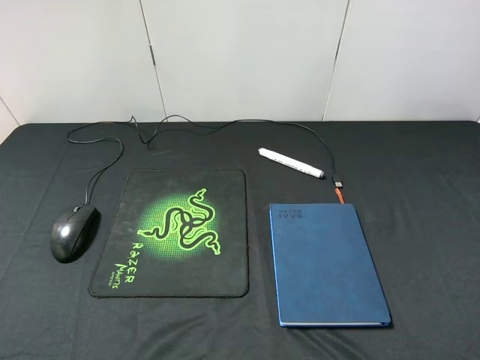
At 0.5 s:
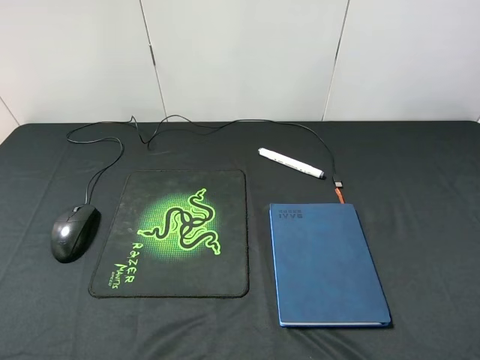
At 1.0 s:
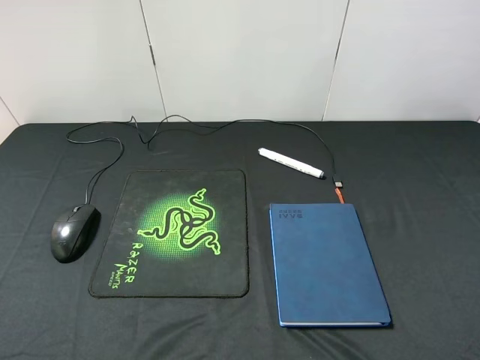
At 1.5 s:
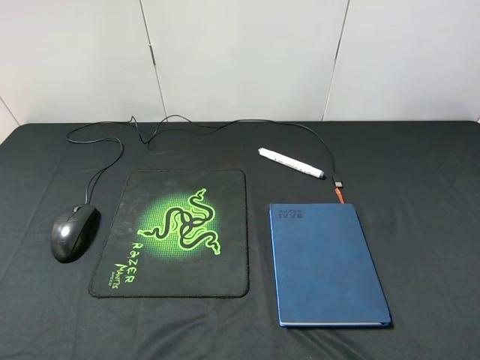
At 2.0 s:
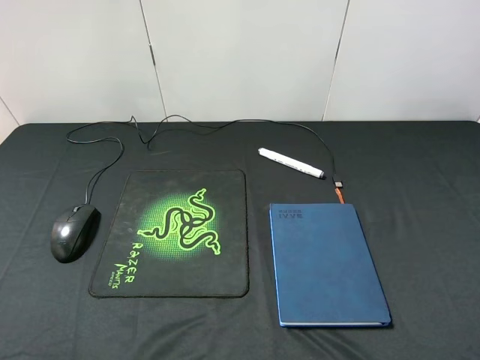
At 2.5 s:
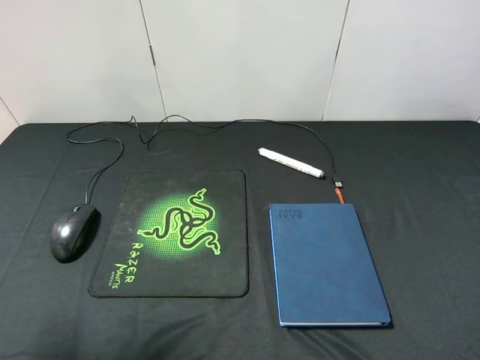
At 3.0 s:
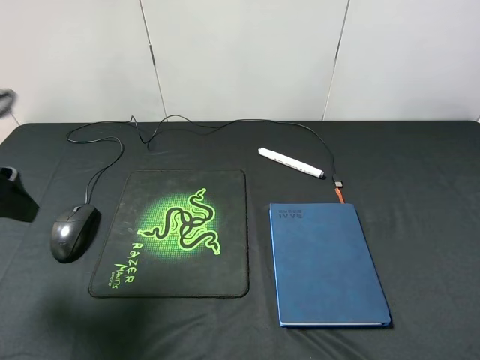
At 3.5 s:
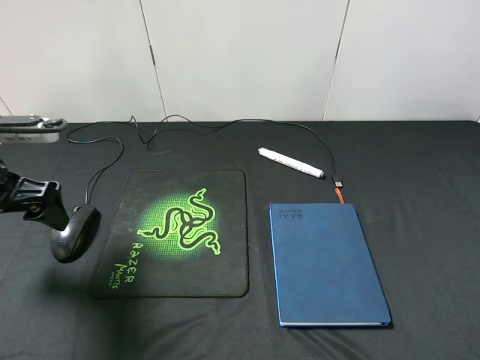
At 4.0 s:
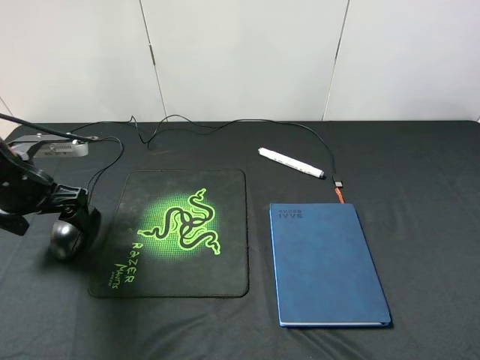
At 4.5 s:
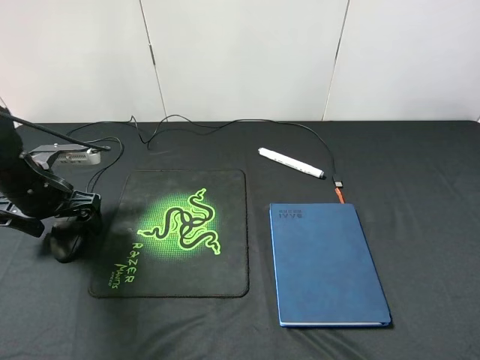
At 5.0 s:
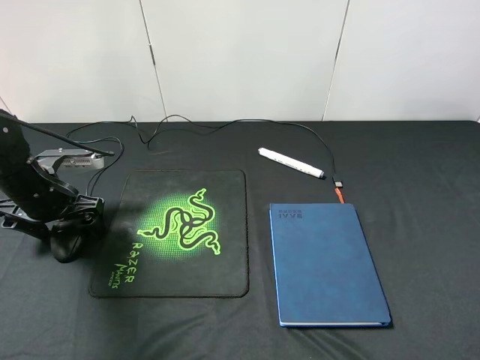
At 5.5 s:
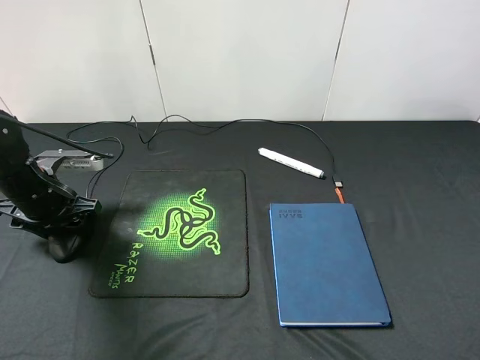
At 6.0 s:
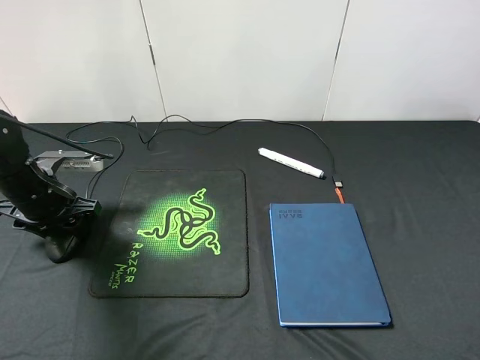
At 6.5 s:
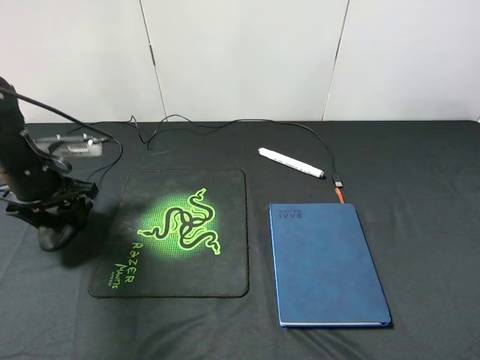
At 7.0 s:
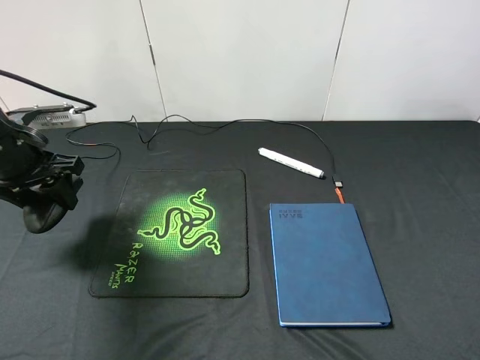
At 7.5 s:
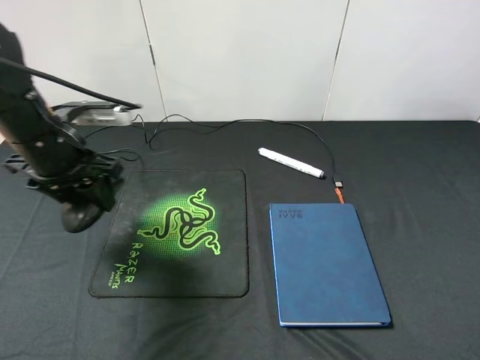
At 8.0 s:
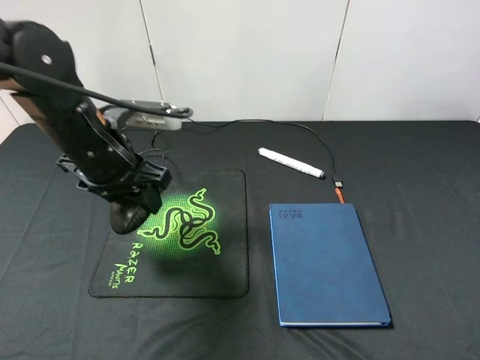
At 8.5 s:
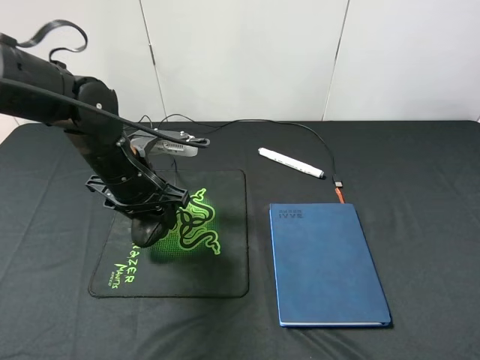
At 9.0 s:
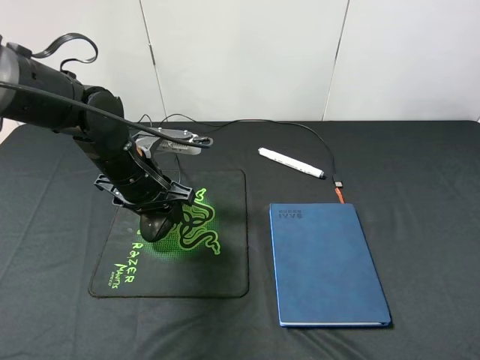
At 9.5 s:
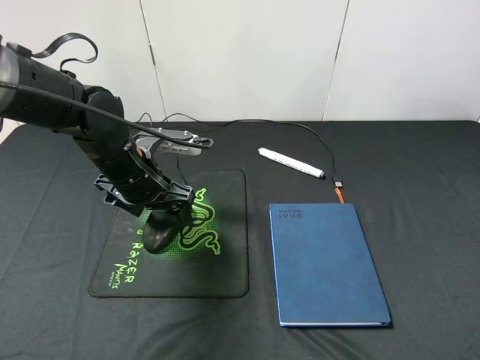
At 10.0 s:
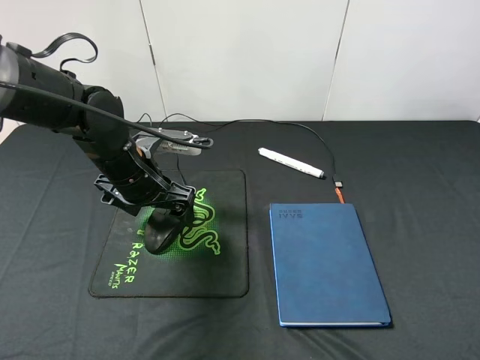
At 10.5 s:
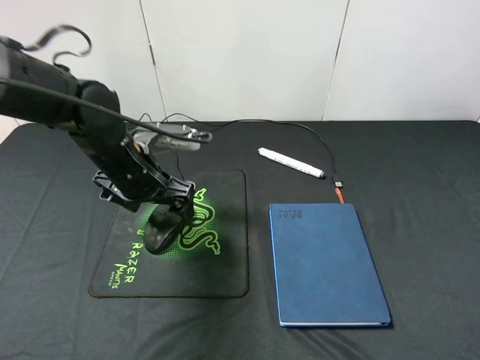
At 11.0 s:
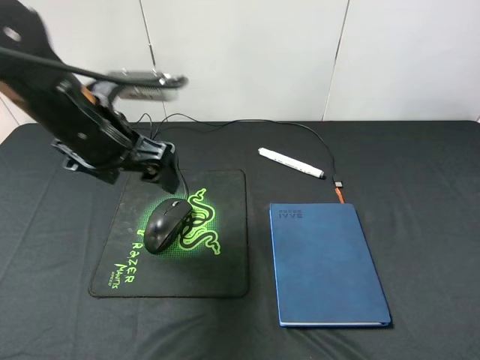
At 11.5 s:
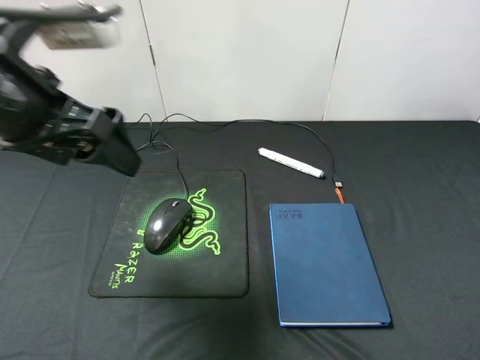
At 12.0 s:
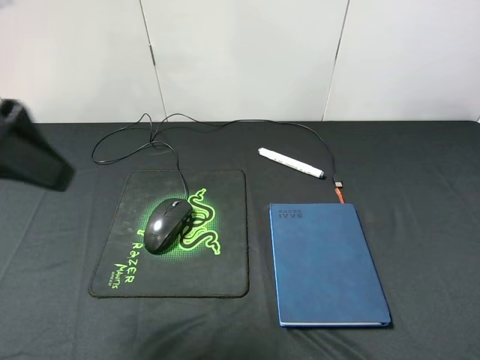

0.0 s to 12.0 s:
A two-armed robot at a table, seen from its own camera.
Step, 0.0 to 6.5 s: Pick up the mouse with left gripper.
Step, 7.0 to 10.5 s: Place the mouse on the mouse pad with left gripper.
2.0 to 4.0 s: The left gripper goes approximately 25 cm forward and downward.
4.0 to 6.0 s: The left gripper closes up.
6.0 to 8.0 s: The left gripper heads to the right and upward, covering roughly 15 cm.
8.0 to 10.0 s: The left gripper moves downward, roughly 5 cm, and opens.
10.0 to 12.0 s: The left gripper moves upward and backward, about 25 cm.

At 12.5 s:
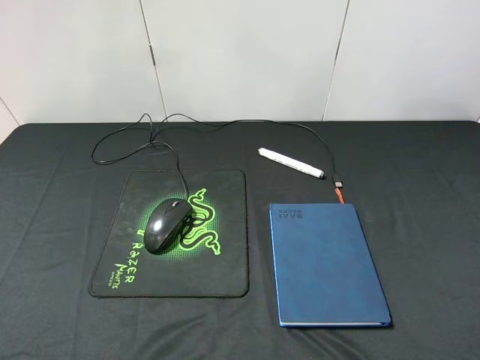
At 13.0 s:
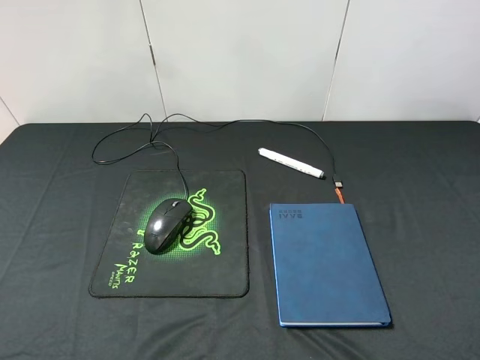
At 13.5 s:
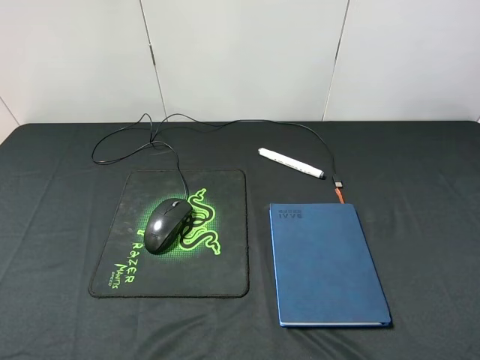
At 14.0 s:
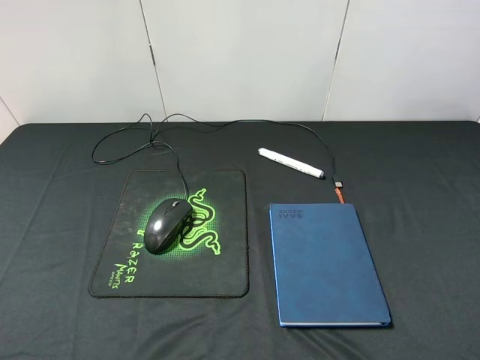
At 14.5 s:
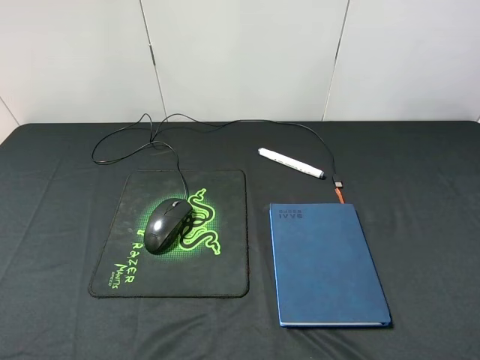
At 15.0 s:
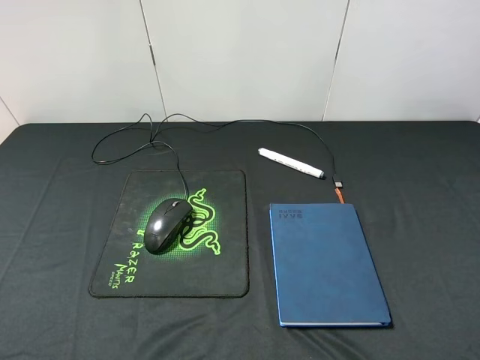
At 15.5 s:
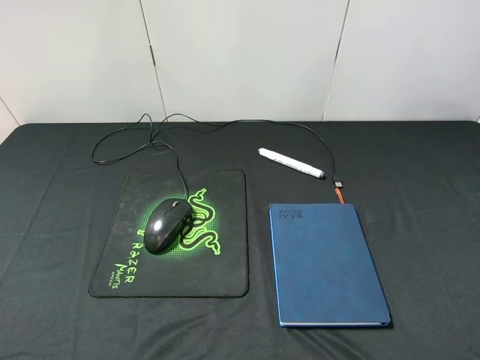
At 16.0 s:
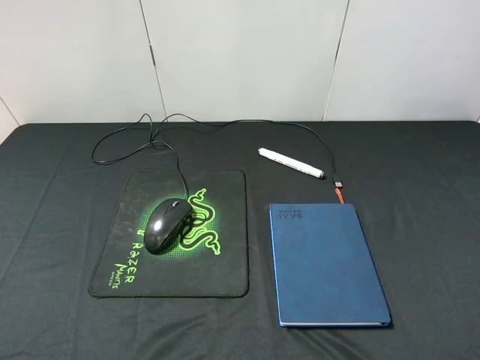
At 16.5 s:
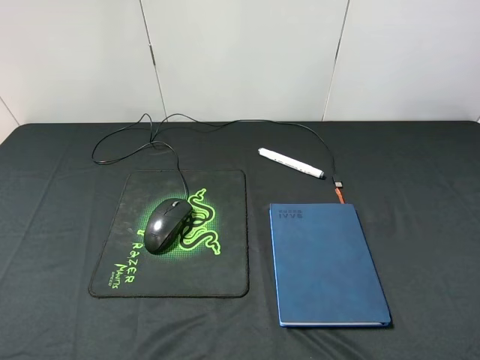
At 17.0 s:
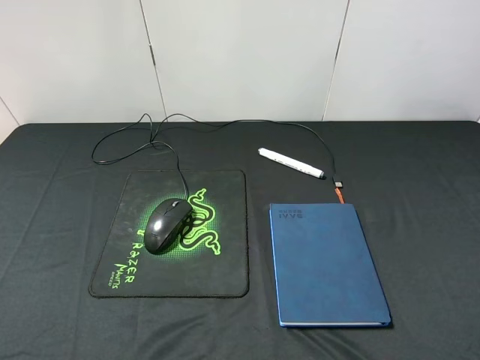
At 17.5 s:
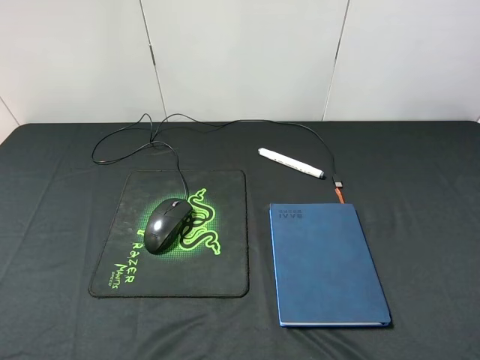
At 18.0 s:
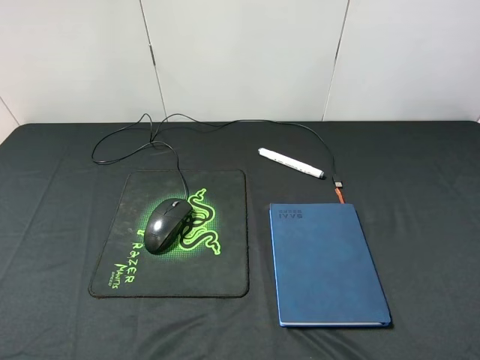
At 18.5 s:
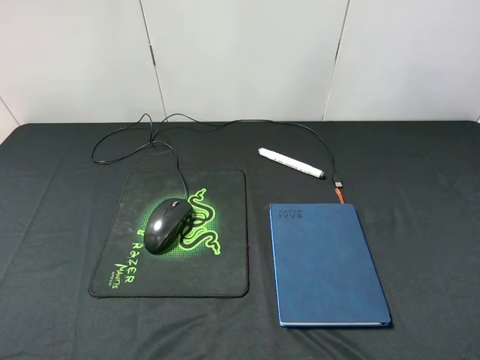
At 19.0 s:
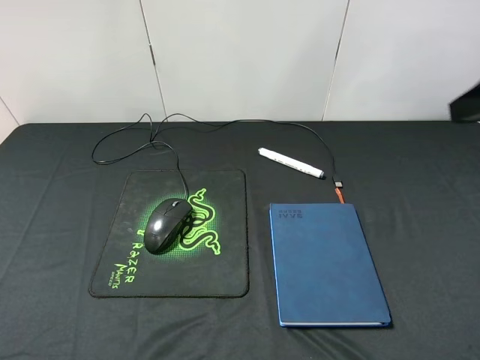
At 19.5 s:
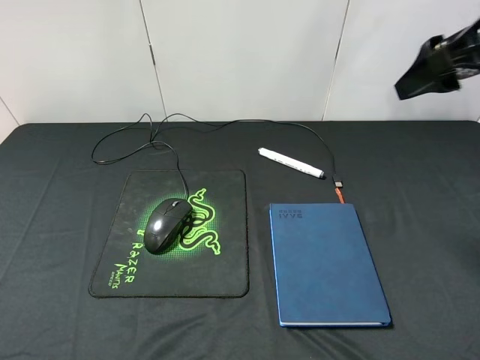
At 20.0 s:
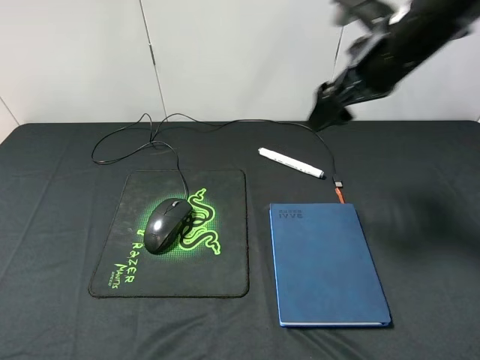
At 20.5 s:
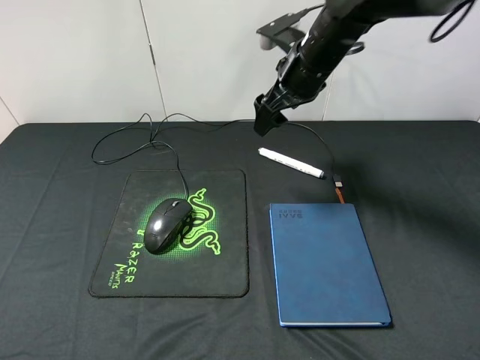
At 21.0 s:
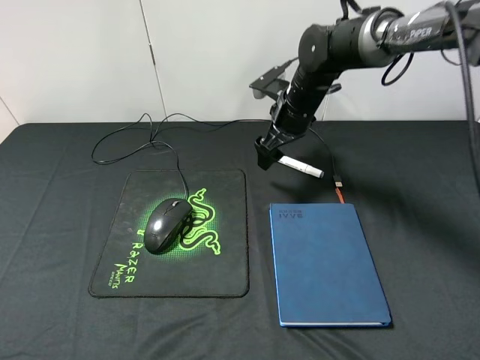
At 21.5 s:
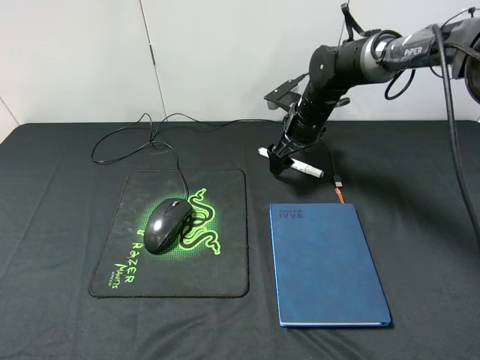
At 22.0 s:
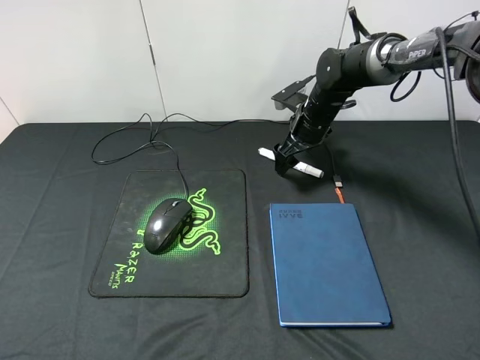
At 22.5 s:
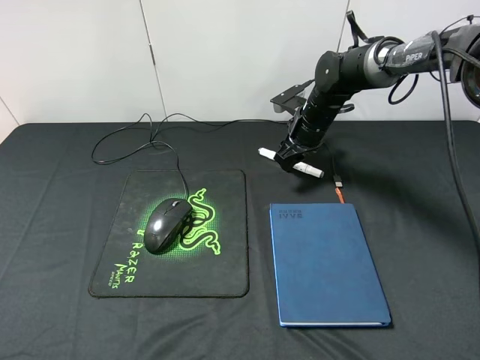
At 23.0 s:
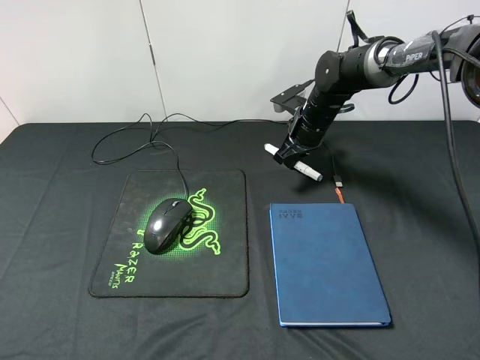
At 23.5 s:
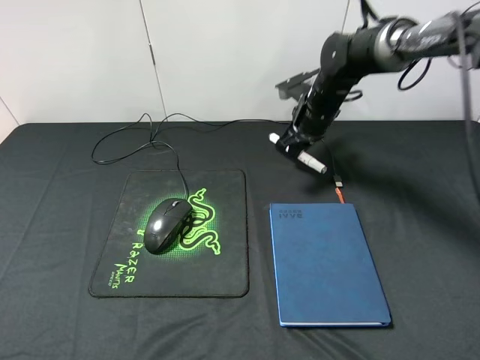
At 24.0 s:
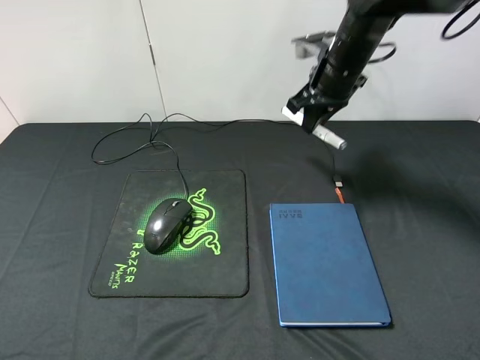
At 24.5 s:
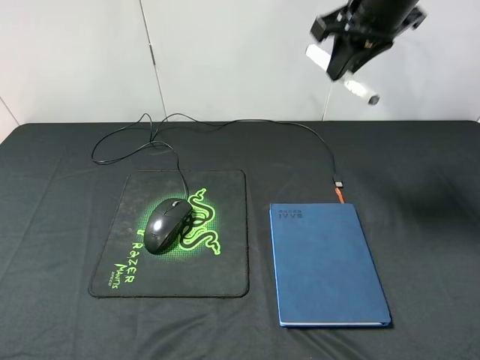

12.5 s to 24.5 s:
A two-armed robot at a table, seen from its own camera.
Step, 12.5 to 23.5 s: Pick up the marker pen with right gripper.
14.5 to 16.5 s: Neither gripper changes place.
18.5 to 20.5 s: The right gripper heads forward and to the left, covering about 35 cm.
20.5 to 22.5 s: The right gripper moves downward, roughly 10 cm, and closes its fingers.
22.5 to 24.5 s: The right gripper goes some 25 cm upward and backward.

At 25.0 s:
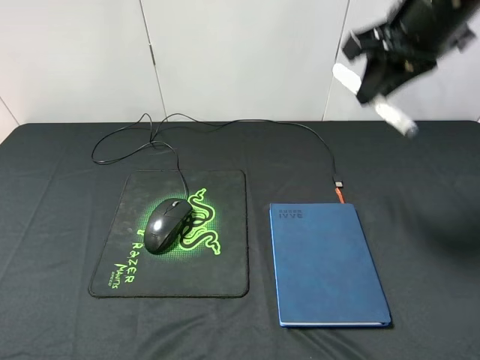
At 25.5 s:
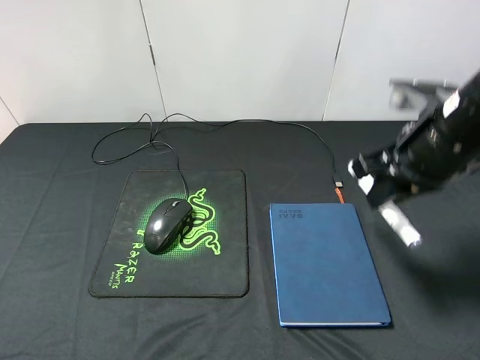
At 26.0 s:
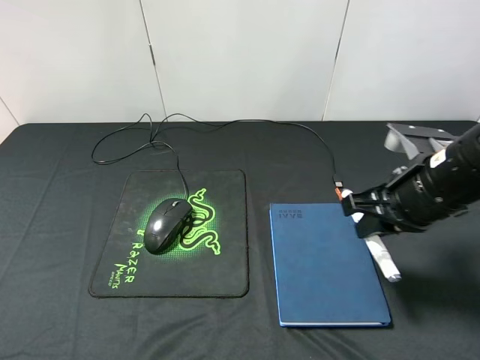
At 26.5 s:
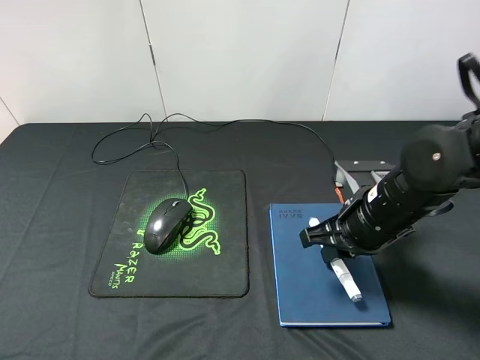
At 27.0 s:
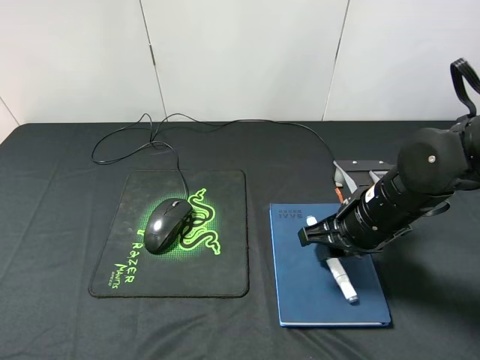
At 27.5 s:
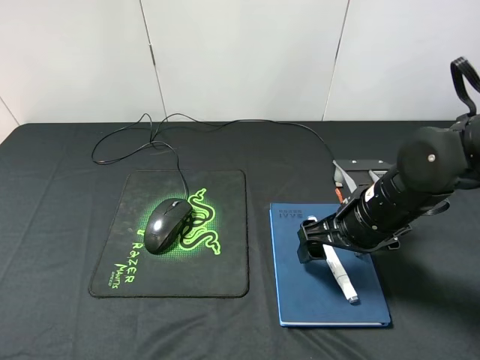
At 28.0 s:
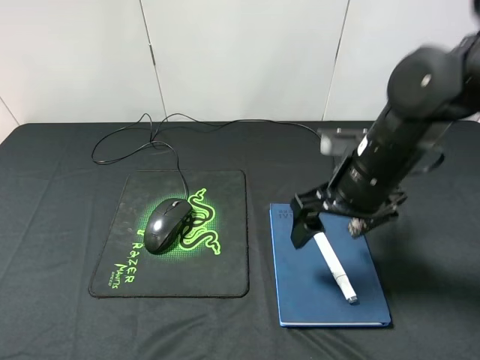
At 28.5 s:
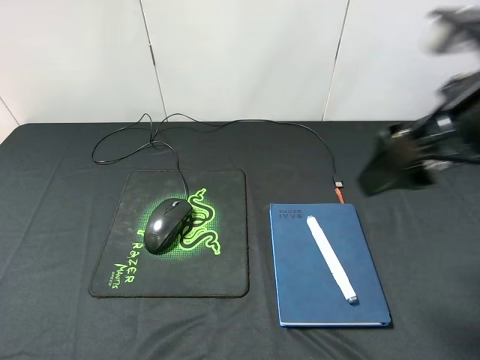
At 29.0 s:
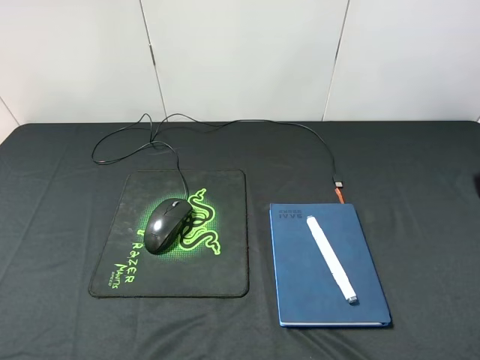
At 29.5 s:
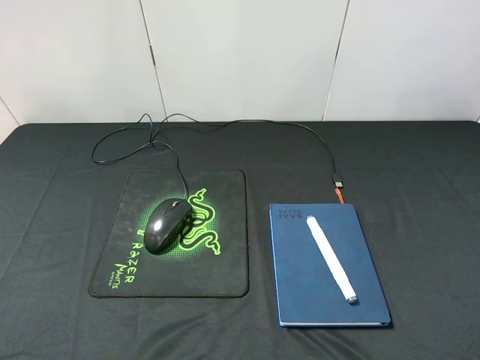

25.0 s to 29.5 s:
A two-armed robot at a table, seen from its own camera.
Step, 25.0 to 27.5 s: Place the marker pen on the notebook with right gripper.
25.0 to 27.0 s: The right gripper shifts approximately 20 cm downward, and opens.
27.0 to 29.5 s: The right gripper heads backward, upward and to the right, covering about 30 cm.
